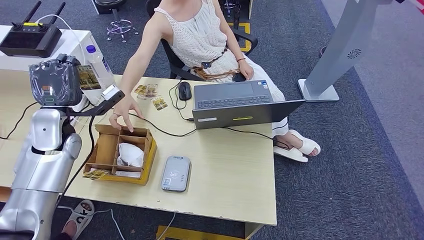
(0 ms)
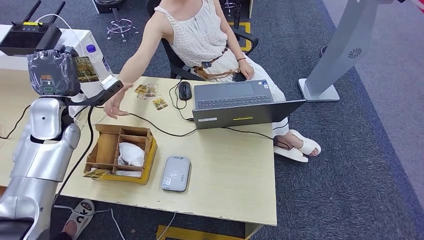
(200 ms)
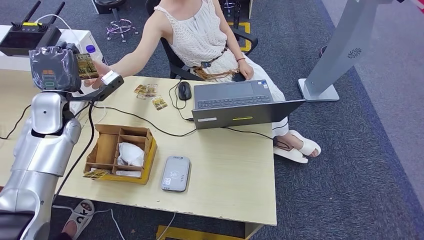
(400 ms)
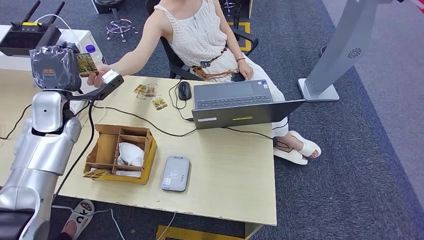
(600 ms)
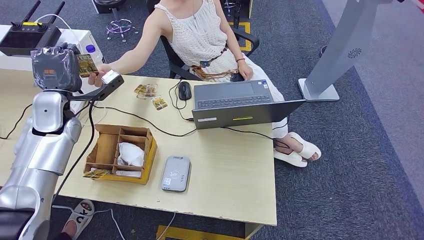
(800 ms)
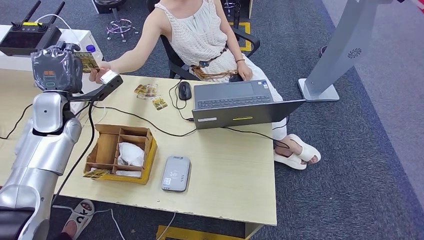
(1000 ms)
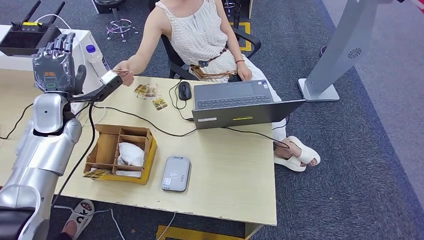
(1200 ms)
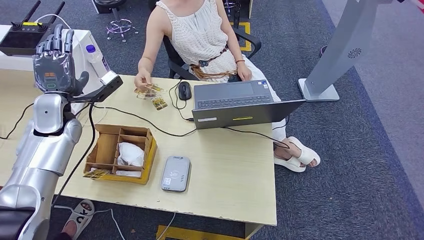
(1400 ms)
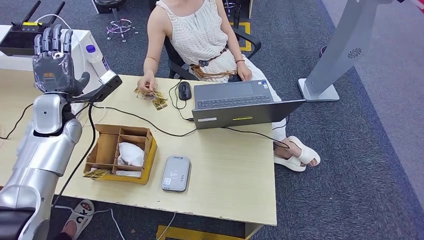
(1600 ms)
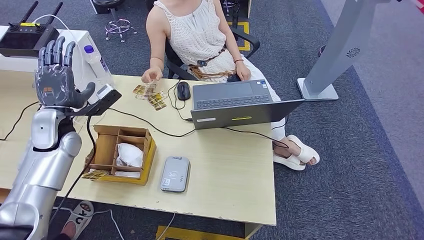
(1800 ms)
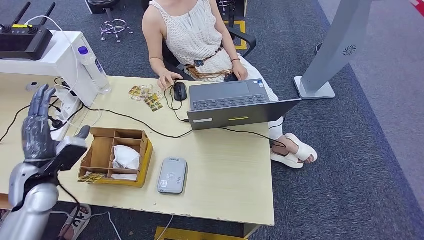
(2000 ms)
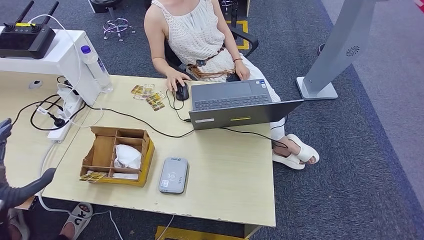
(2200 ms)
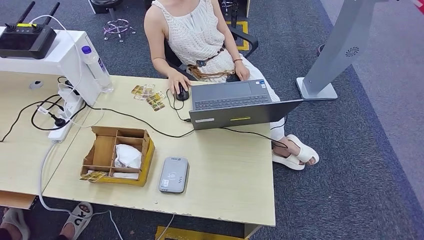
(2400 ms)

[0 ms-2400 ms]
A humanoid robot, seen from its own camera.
Step, 0 ms to 2400 ms: Hand the room key to the person.
0 ms to 1200 ms: The hands move only a little.
